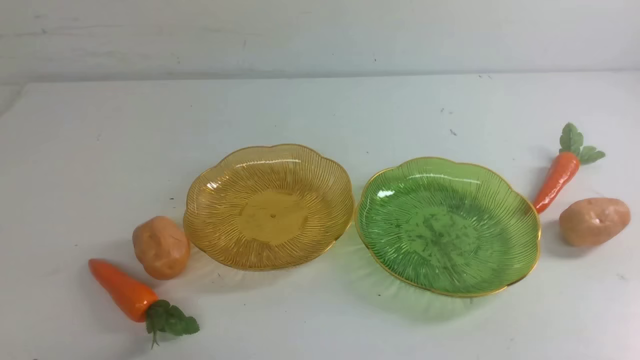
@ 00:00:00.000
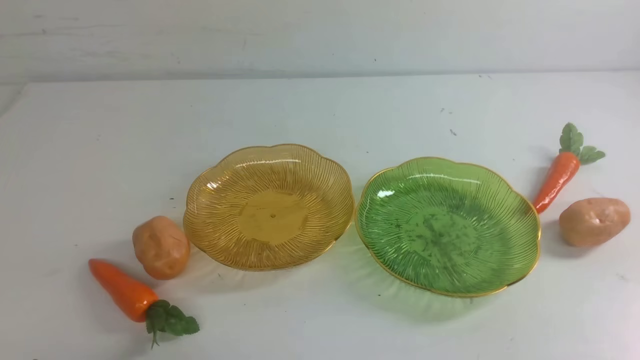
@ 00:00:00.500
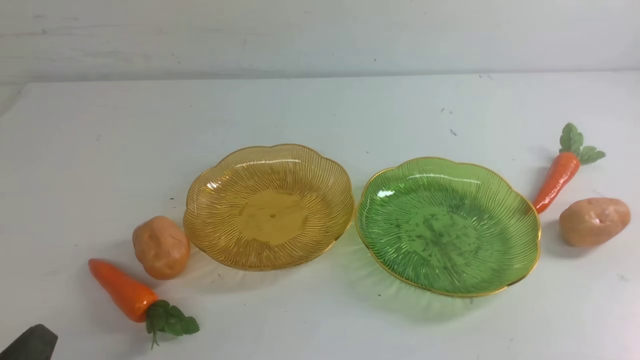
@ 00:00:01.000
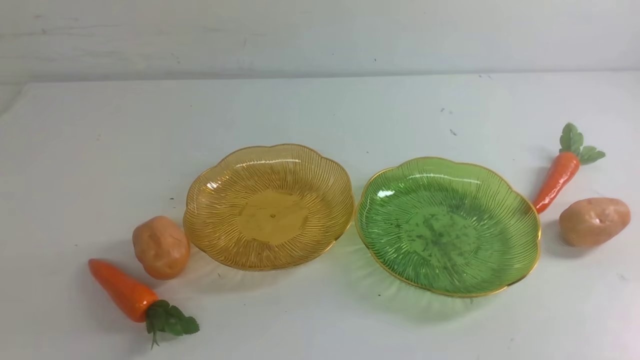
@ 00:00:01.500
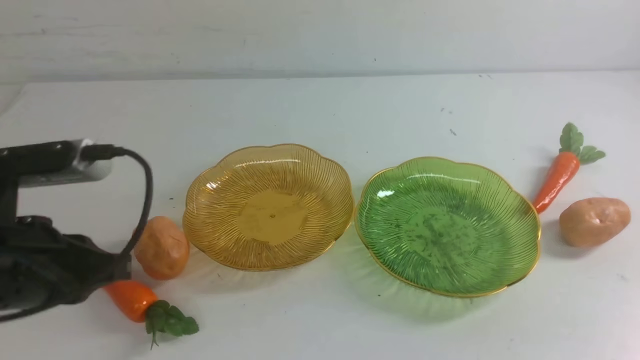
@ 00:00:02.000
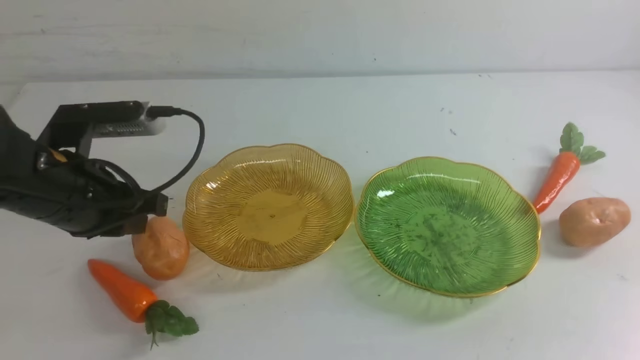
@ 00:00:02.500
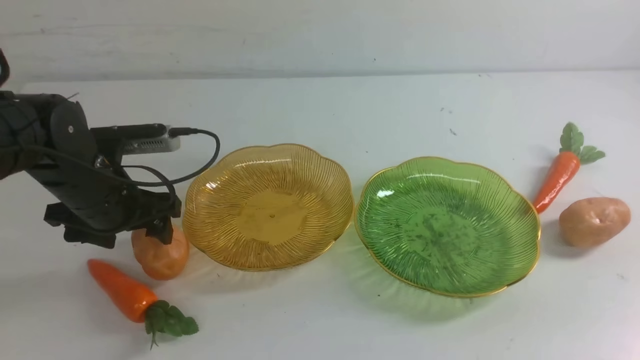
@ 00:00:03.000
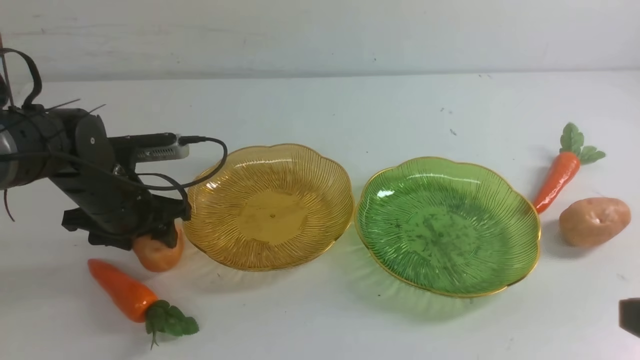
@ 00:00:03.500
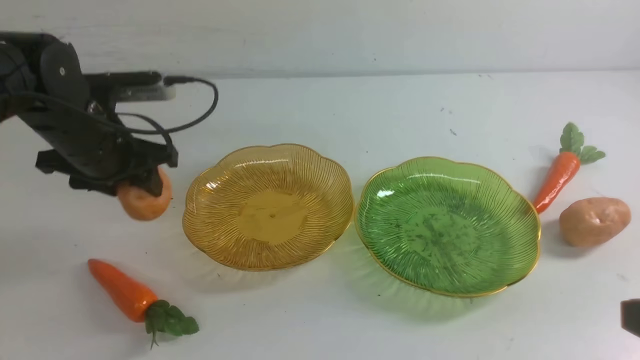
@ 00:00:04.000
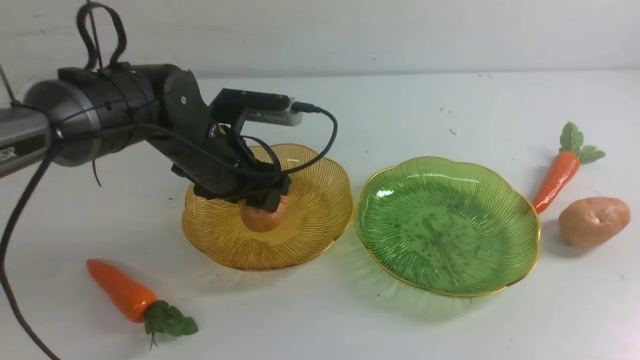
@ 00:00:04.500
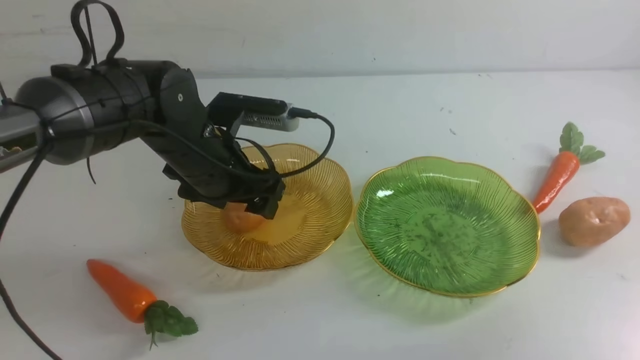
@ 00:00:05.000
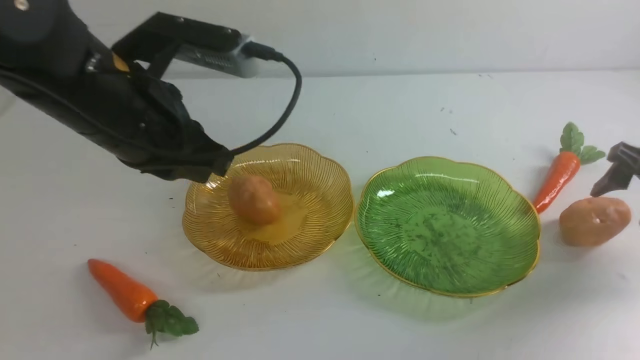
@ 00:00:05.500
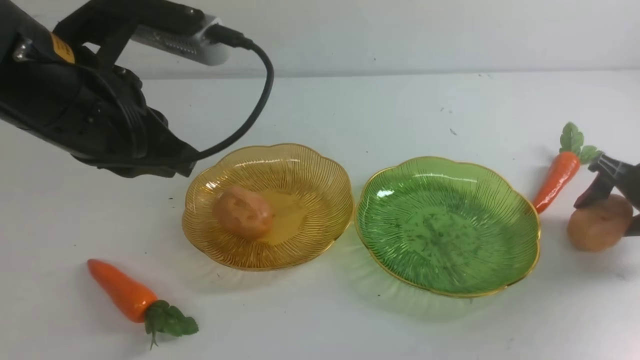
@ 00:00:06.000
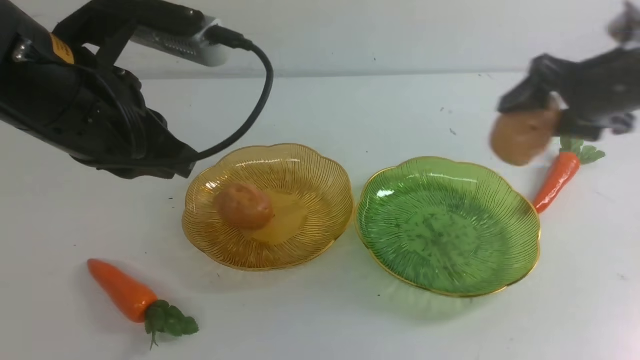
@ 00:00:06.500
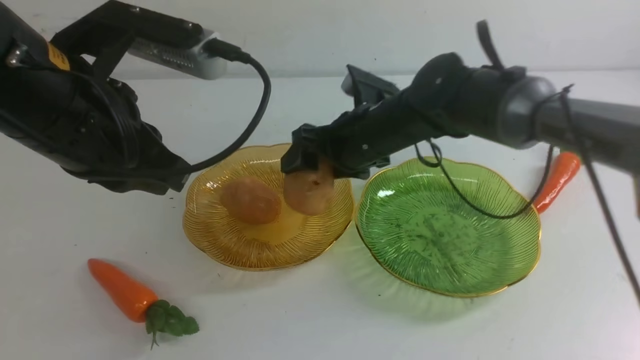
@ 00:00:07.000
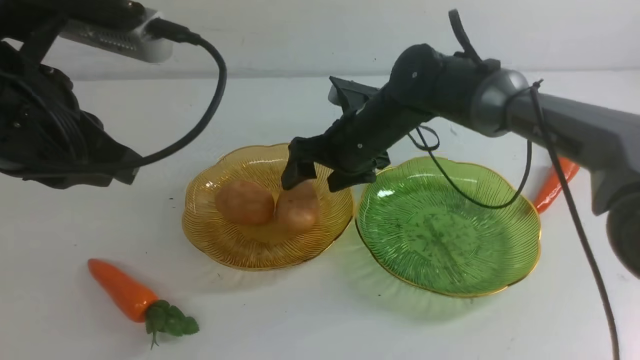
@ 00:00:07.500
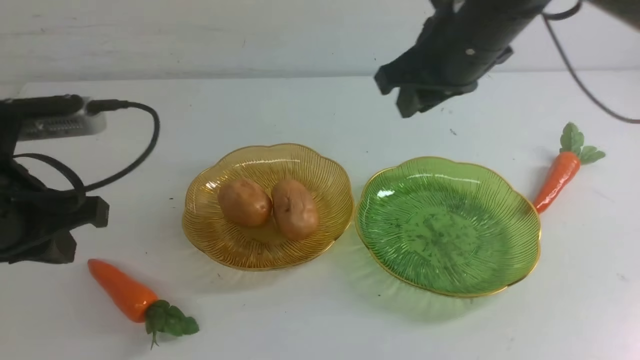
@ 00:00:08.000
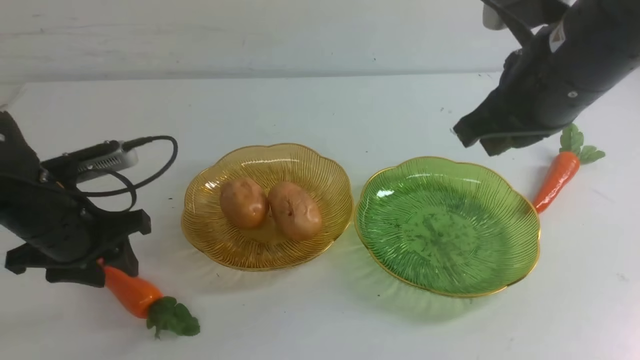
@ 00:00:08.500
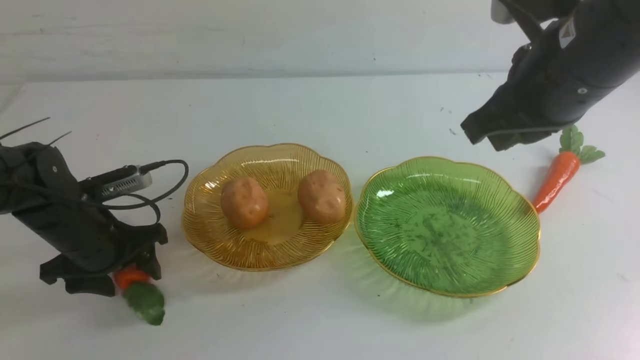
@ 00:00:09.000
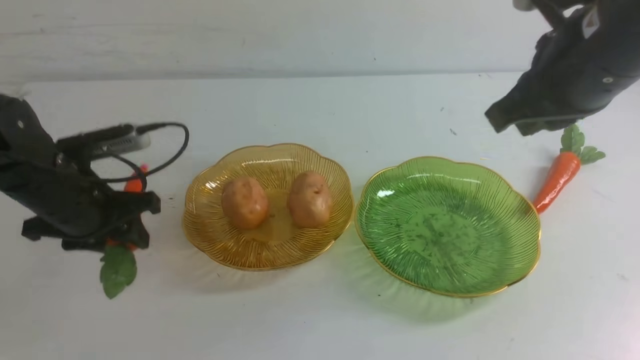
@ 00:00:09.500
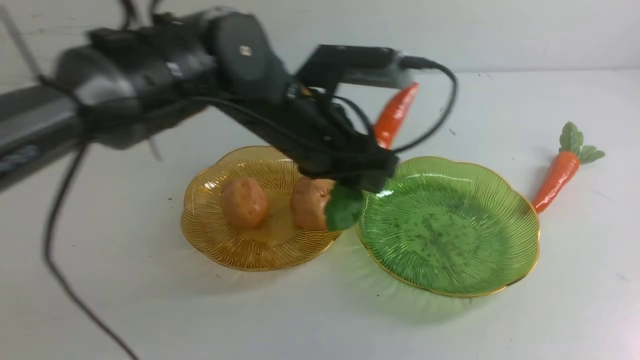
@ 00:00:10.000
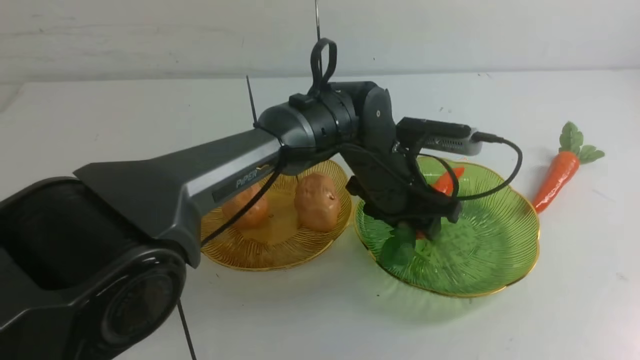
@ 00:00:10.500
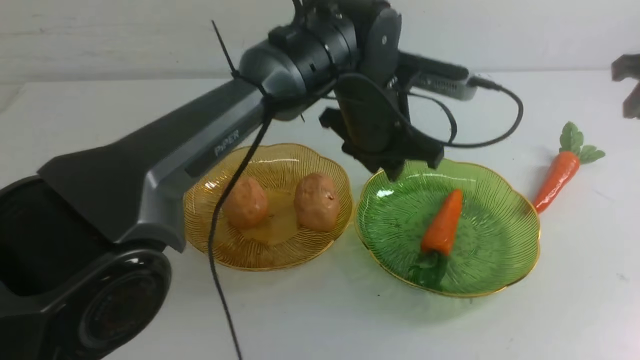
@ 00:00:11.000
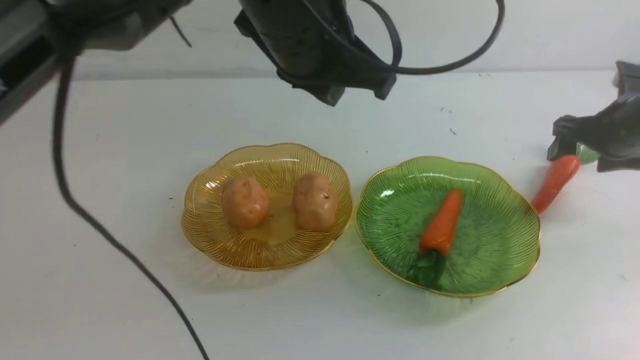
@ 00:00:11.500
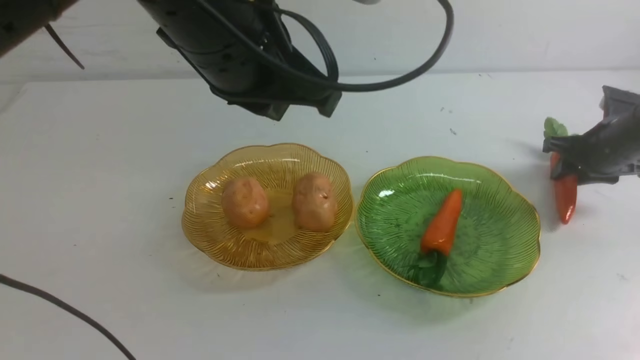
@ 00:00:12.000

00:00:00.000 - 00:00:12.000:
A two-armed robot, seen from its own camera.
Step, 00:00:00.000 - 00:00:04.500: Grab a potato with your left arm and put it on the left plate.
Step, 00:00:05.000 - 00:00:07.000: Grab a potato with your right arm and put it on the left plate.
Step, 00:00:07.500 - 00:00:10.500: use the left arm to grab a carrot and put it into the right plate.
00:00:00.000 - 00:00:02.000: The left gripper travels upward and forward by about 20 cm.
00:00:02.000 - 00:00:04.000: The left gripper heads forward, covering approximately 20 cm, and opens.
00:00:04.000 - 00:00:06.000: The right gripper heads forward, covering about 25 cm, and opens its fingers; the left gripper heads upward and backward, covering roughly 15 cm, and closes its fingers.
00:00:06.000 - 00:00:08.000: The left gripper travels downward and to the left by about 20 cm, and opens its fingers. Meanwhile the right gripper shifts some 20 cm to the left, upward and backward, and closes.
00:00:08.000 - 00:00:10.000: The right gripper shifts approximately 15 cm to the right; the left gripper is displaced to the right by about 30 cm.
00:00:10.000 - 00:00:12.000: The left gripper heads upward, to the left and backward, covering approximately 30 cm, and closes up. Meanwhile the right gripper goes roughly 10 cm forward, travels downward and back again, roughly 20 cm each way, and opens its fingers.

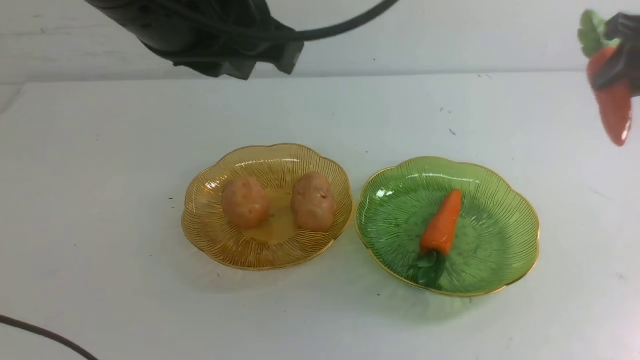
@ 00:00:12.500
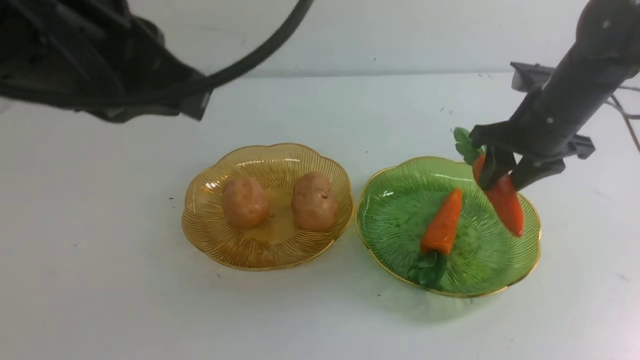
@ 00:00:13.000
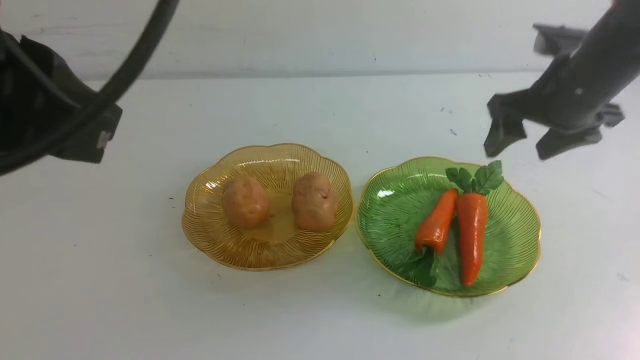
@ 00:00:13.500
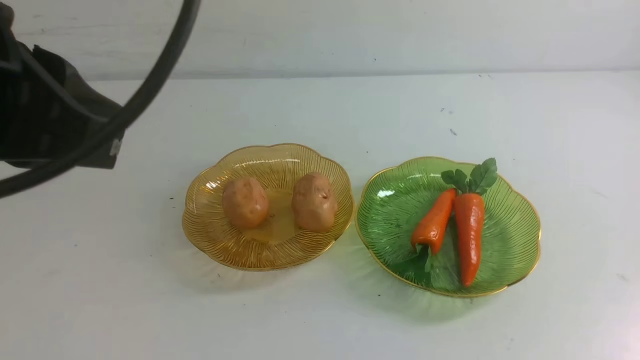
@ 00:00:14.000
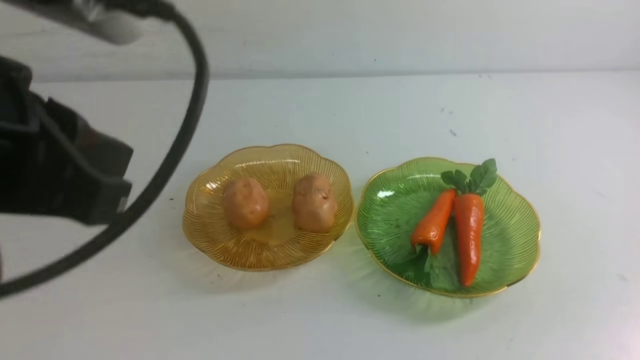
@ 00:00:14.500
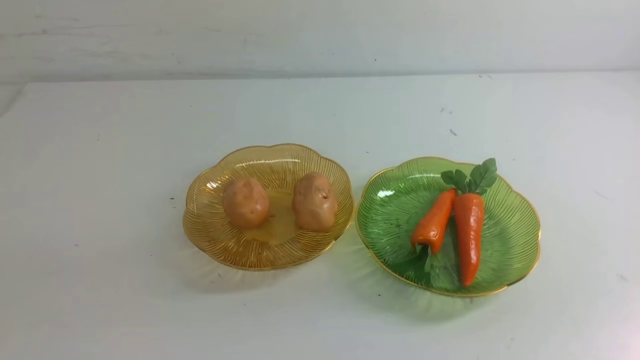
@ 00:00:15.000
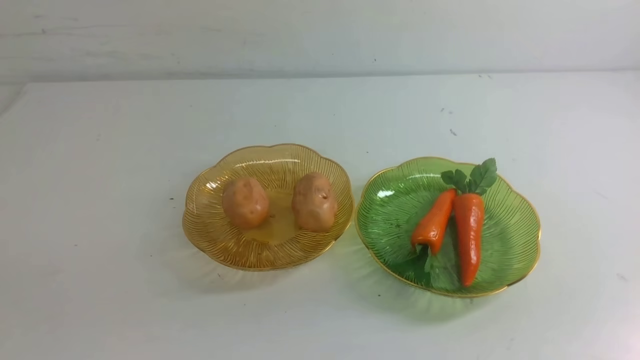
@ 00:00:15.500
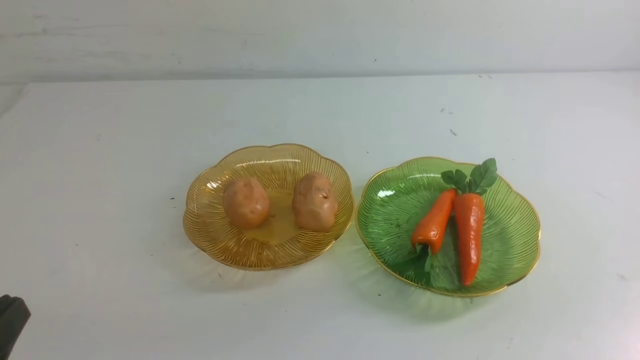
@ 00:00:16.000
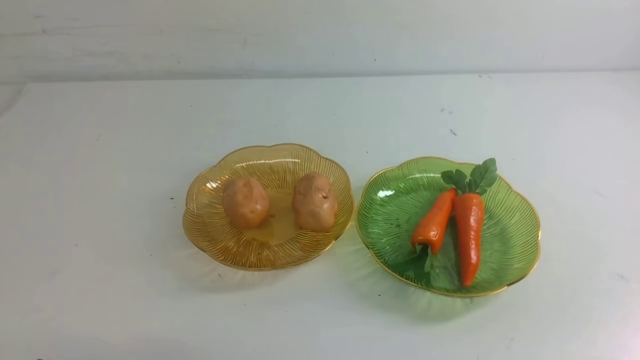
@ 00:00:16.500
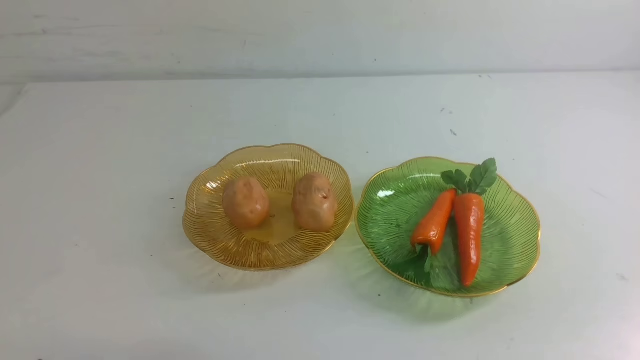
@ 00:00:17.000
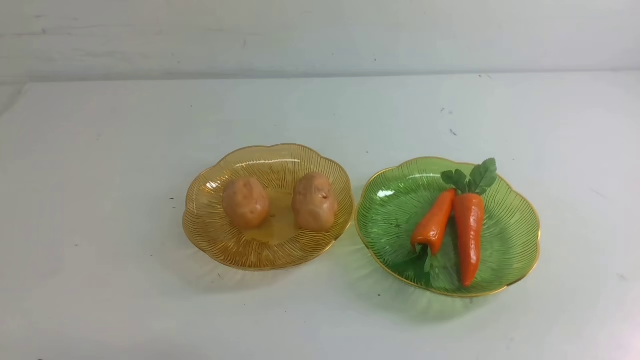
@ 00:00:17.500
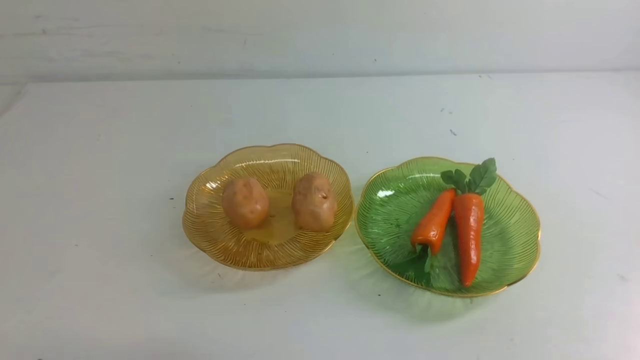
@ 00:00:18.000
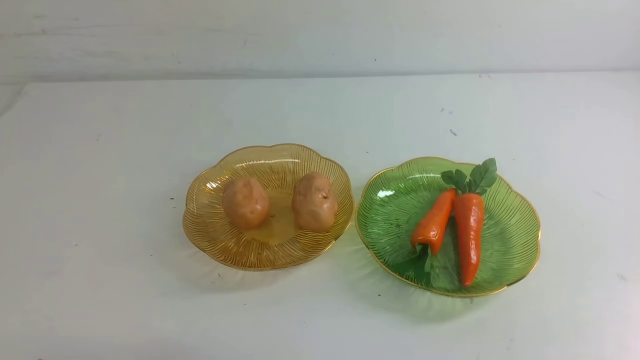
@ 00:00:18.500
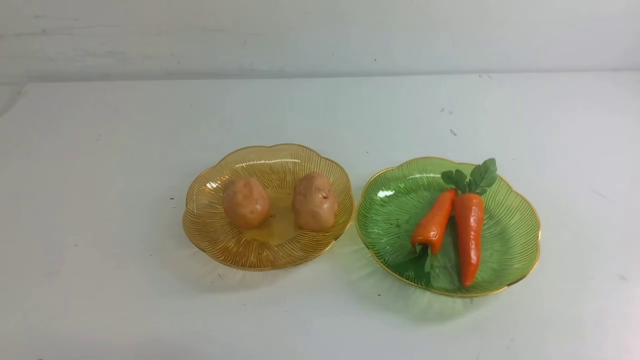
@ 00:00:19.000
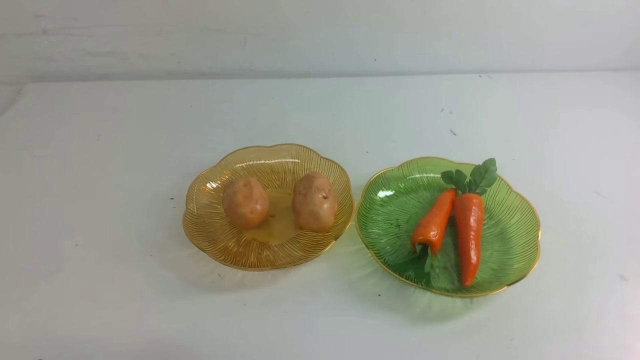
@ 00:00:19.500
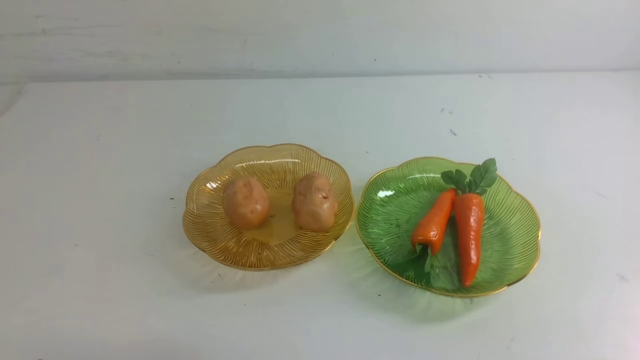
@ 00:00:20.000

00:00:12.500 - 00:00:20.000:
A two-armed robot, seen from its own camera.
00:00:12.500 - 00:00:14.500: The left gripper is displaced backward, to the left and downward by about 20 cm; the right gripper goes some 35 cm backward, and closes its fingers.
00:00:14.500 - 00:00:16.500: The left gripper is displaced downward by approximately 20 cm.
00:00:18.000 - 00:00:20.000: Both grippers stay put.
